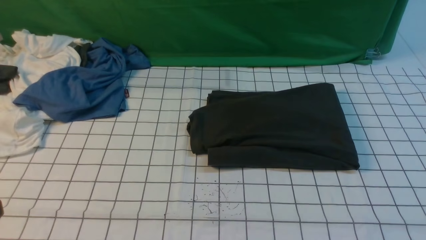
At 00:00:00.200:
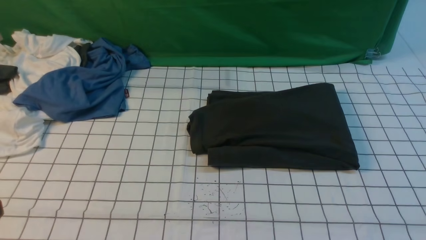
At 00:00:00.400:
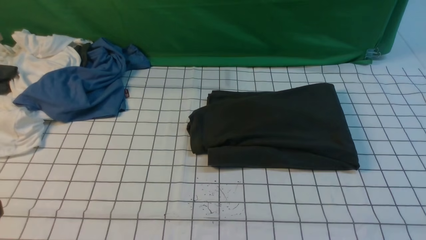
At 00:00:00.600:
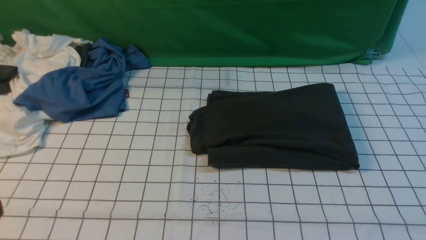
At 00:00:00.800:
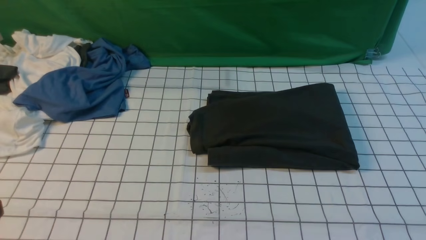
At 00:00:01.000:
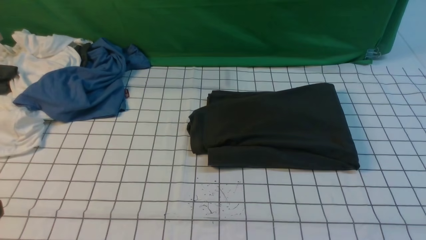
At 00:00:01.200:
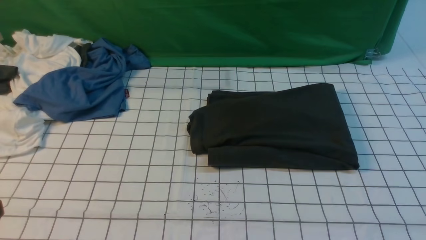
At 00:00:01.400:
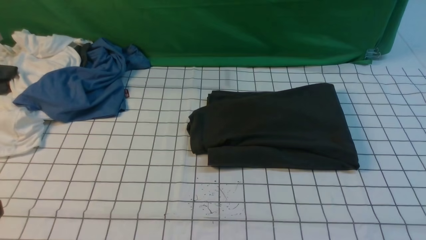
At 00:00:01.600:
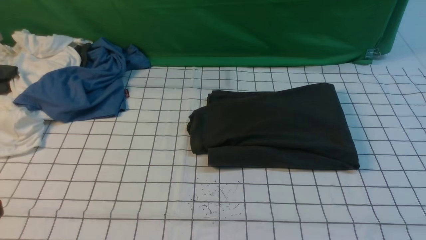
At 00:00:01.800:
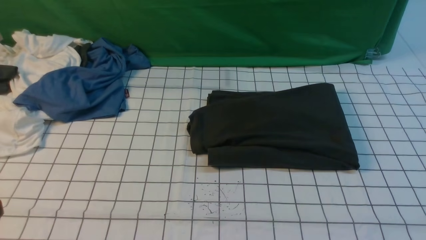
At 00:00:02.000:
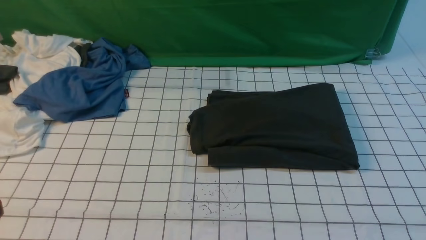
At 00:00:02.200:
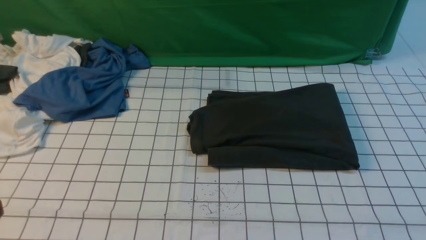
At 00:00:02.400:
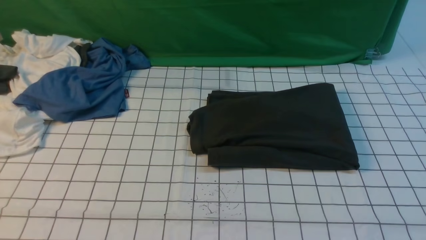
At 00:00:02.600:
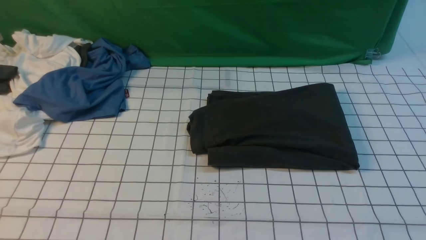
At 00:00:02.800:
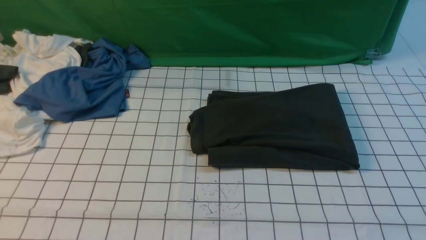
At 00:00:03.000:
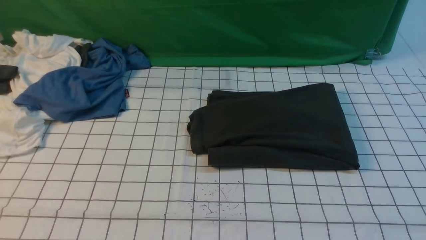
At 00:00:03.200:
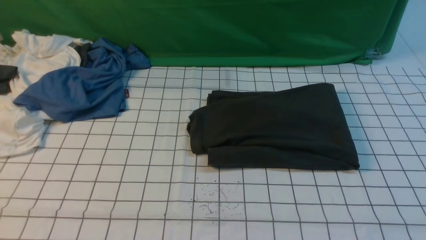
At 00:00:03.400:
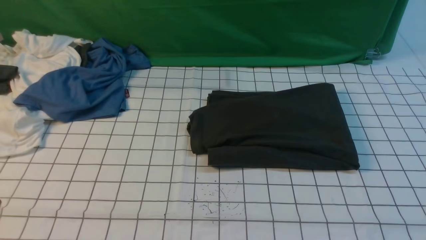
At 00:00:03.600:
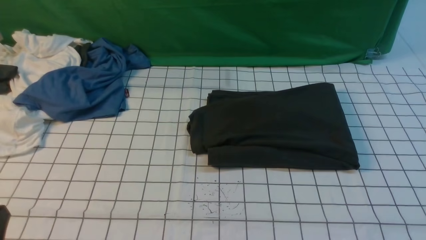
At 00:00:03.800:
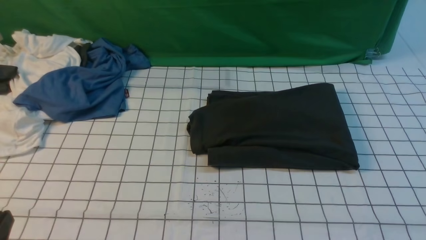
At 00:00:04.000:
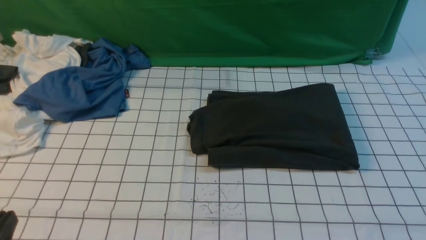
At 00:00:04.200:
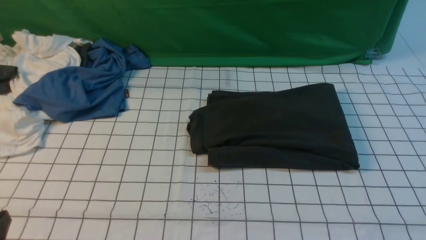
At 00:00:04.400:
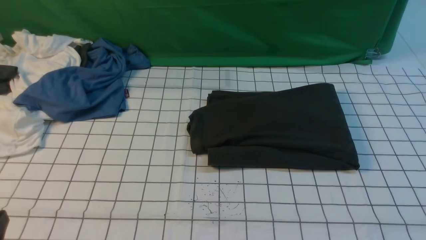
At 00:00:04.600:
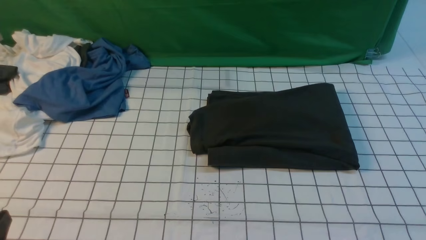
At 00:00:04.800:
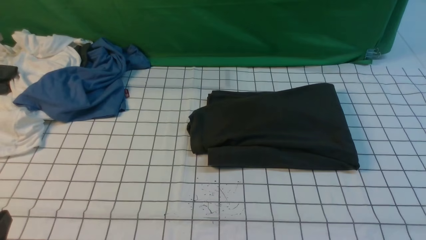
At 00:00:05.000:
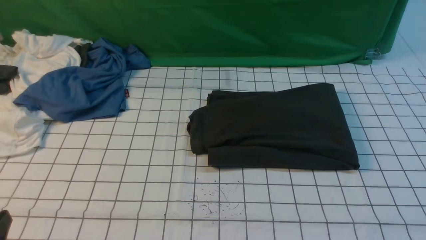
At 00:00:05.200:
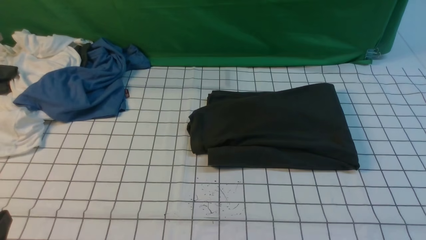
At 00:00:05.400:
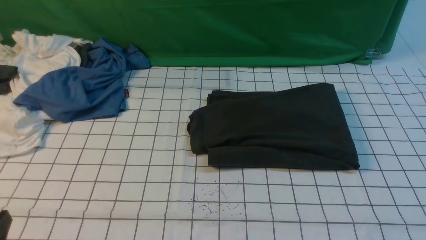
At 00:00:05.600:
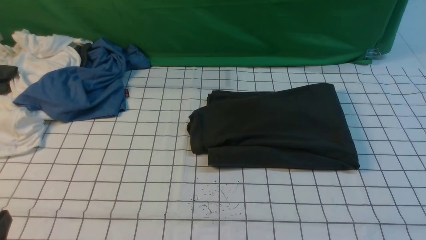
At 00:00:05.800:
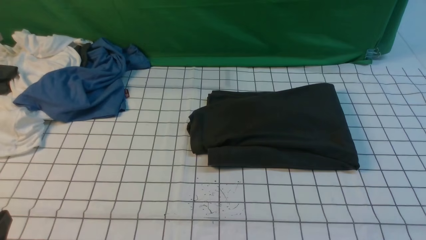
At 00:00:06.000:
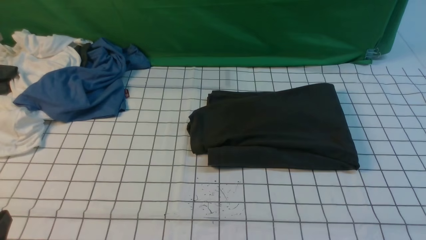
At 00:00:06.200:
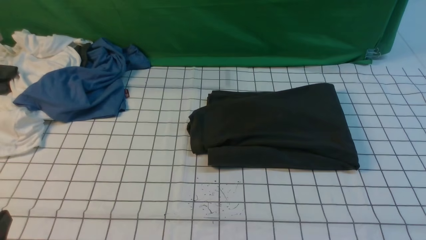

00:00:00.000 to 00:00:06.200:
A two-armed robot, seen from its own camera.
00:00:04.600 to 00:00:06.200: Both grippers stay about where they are.

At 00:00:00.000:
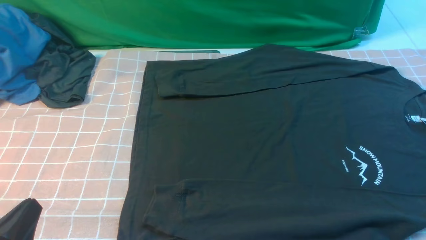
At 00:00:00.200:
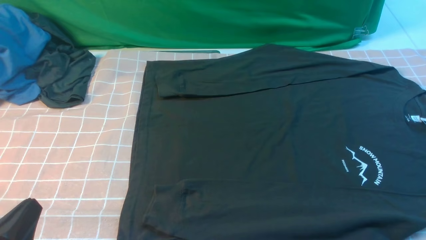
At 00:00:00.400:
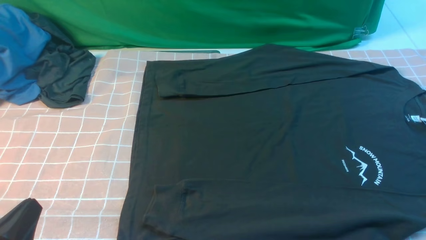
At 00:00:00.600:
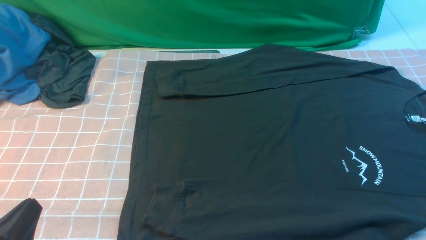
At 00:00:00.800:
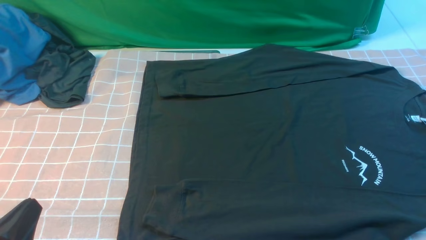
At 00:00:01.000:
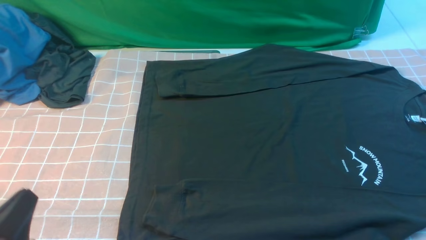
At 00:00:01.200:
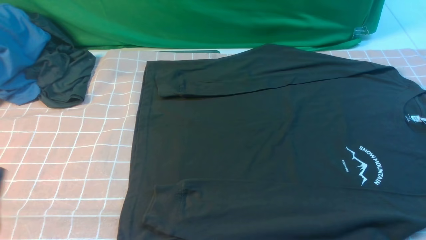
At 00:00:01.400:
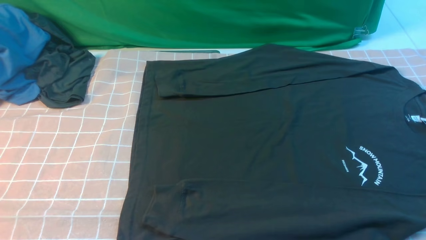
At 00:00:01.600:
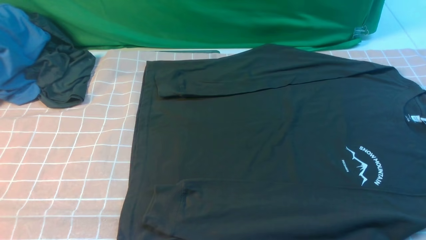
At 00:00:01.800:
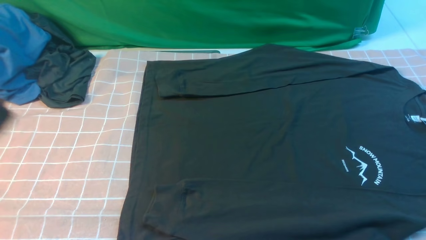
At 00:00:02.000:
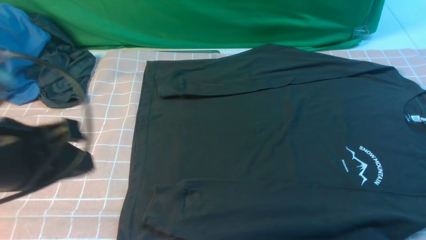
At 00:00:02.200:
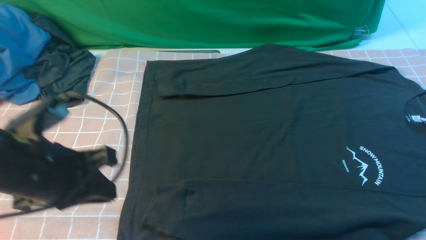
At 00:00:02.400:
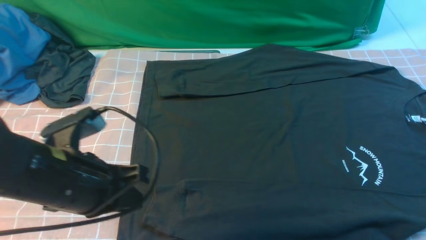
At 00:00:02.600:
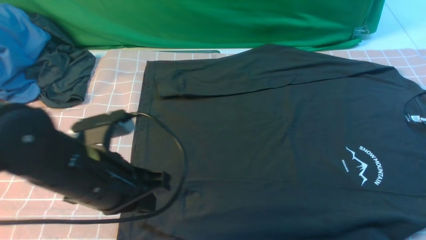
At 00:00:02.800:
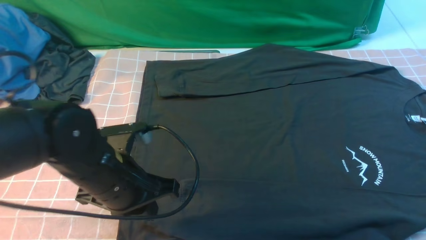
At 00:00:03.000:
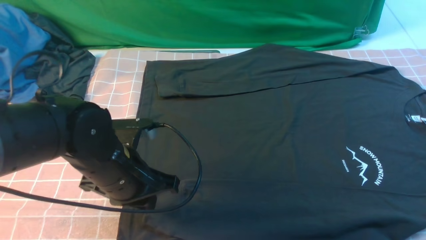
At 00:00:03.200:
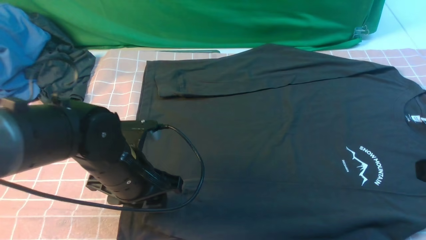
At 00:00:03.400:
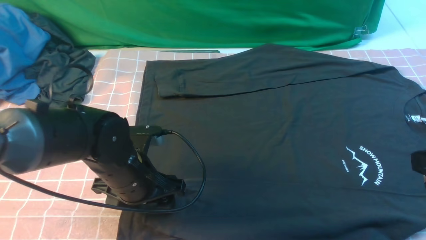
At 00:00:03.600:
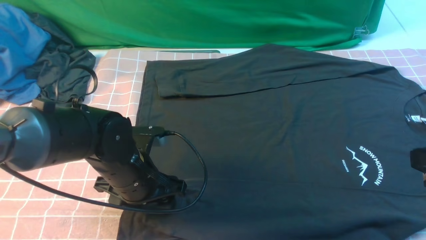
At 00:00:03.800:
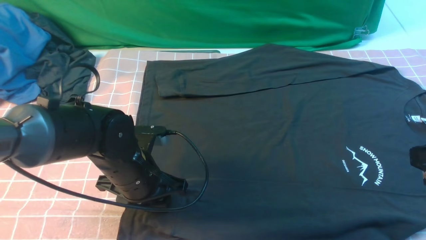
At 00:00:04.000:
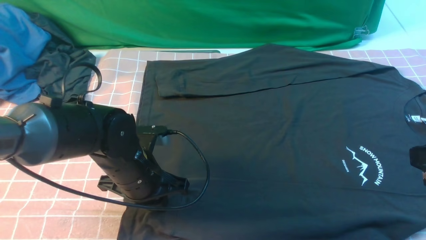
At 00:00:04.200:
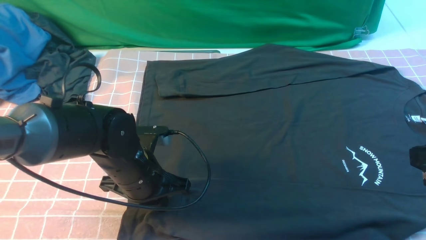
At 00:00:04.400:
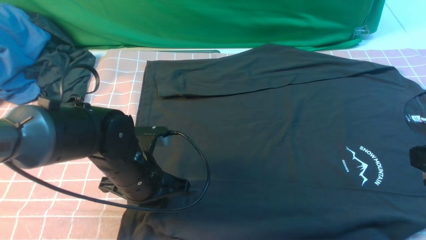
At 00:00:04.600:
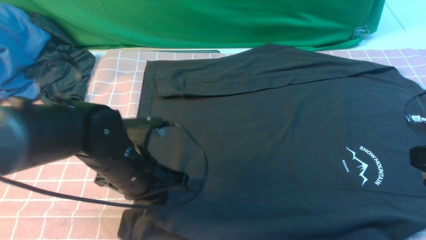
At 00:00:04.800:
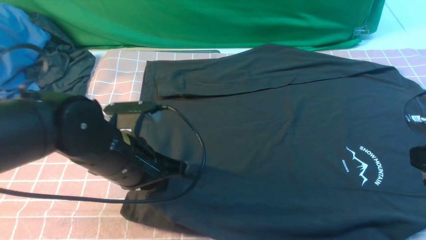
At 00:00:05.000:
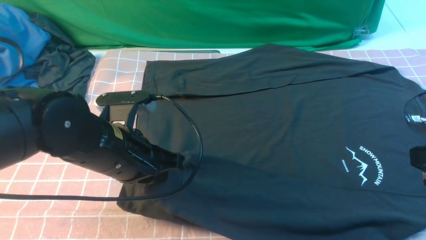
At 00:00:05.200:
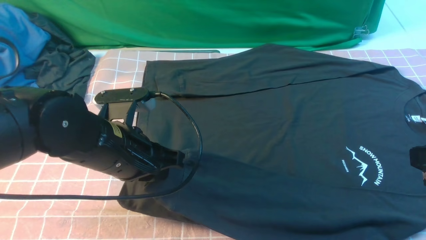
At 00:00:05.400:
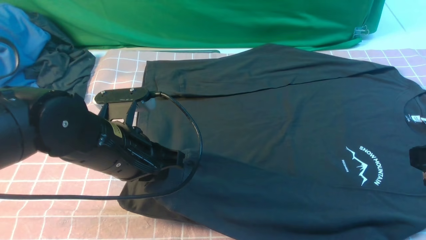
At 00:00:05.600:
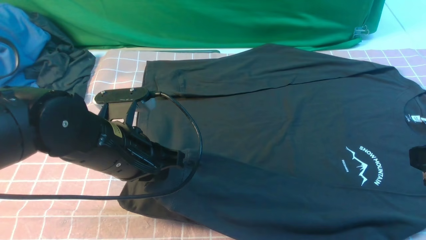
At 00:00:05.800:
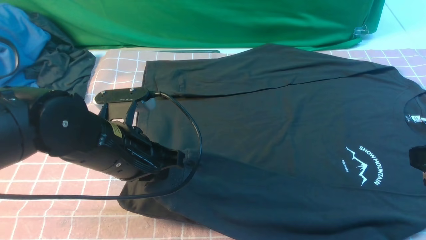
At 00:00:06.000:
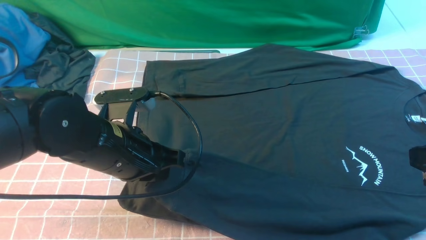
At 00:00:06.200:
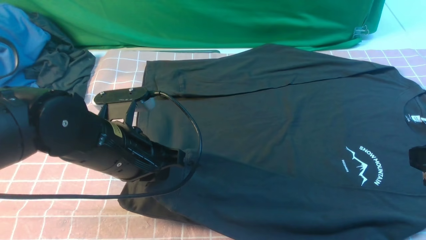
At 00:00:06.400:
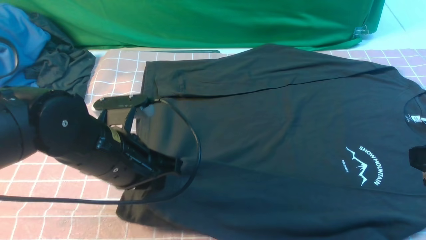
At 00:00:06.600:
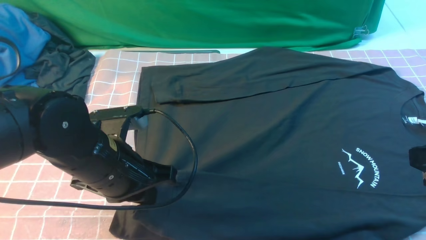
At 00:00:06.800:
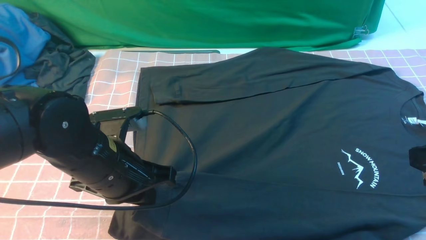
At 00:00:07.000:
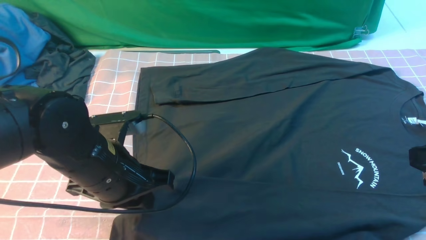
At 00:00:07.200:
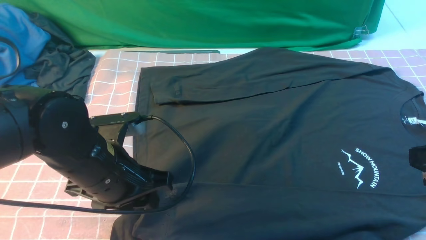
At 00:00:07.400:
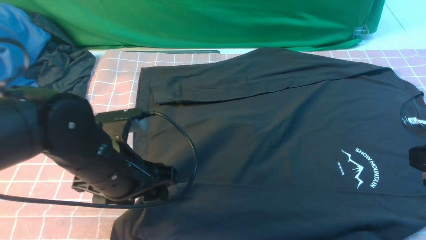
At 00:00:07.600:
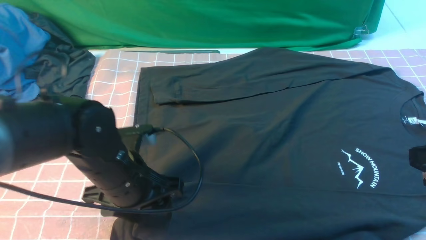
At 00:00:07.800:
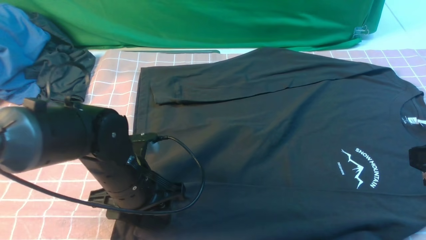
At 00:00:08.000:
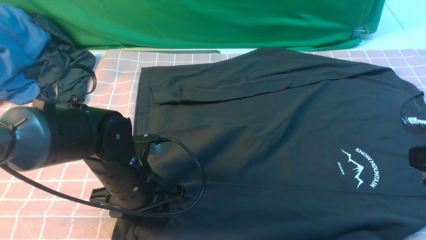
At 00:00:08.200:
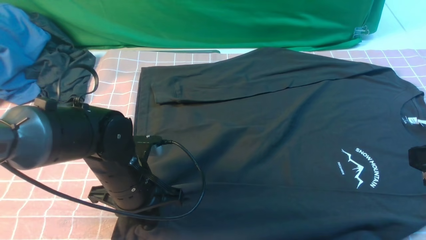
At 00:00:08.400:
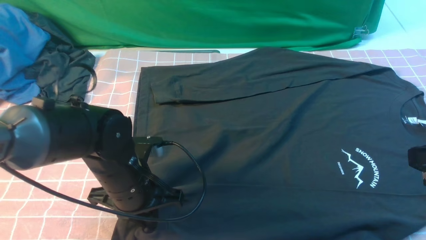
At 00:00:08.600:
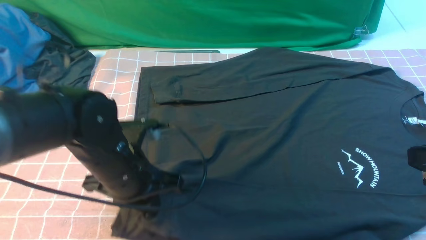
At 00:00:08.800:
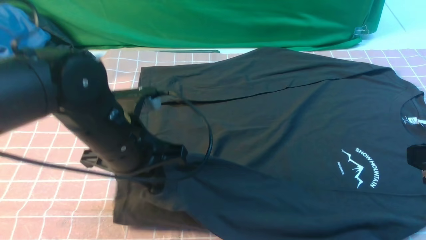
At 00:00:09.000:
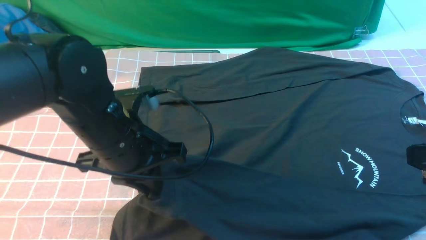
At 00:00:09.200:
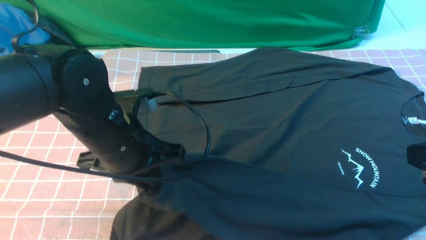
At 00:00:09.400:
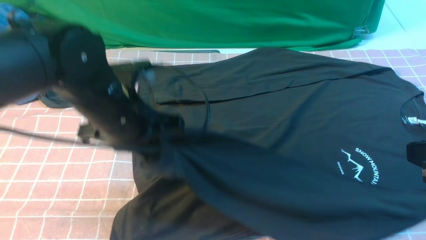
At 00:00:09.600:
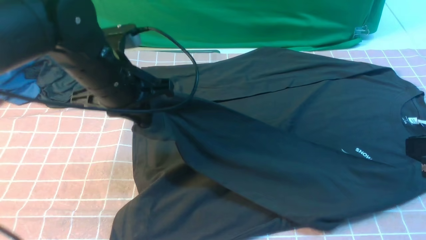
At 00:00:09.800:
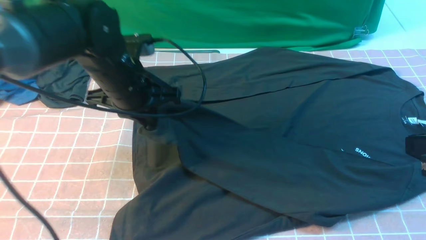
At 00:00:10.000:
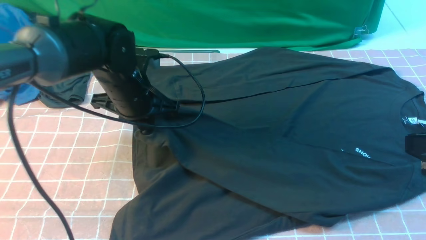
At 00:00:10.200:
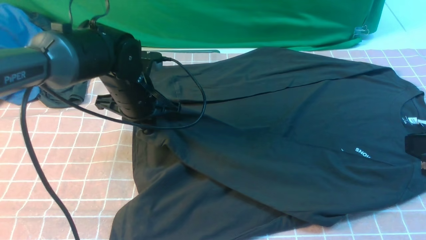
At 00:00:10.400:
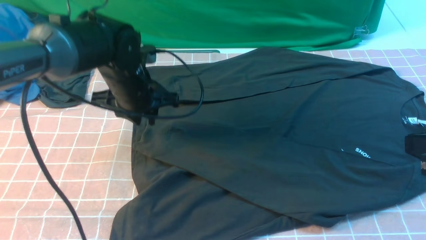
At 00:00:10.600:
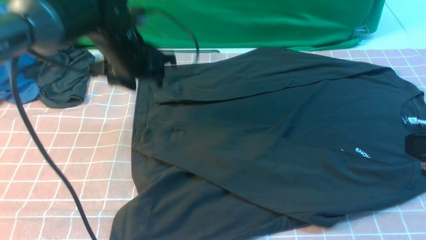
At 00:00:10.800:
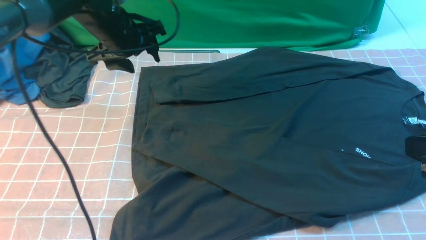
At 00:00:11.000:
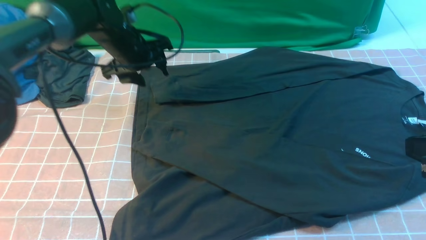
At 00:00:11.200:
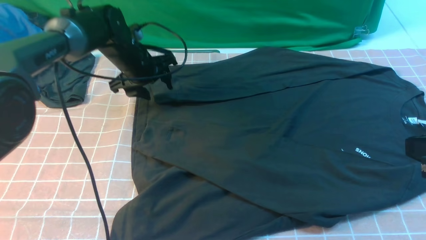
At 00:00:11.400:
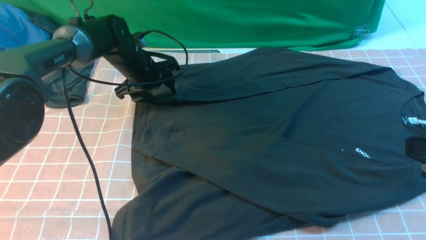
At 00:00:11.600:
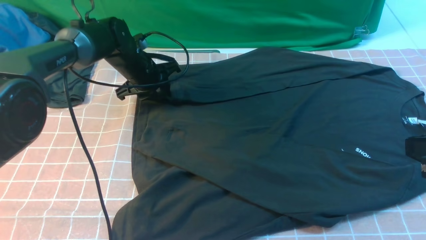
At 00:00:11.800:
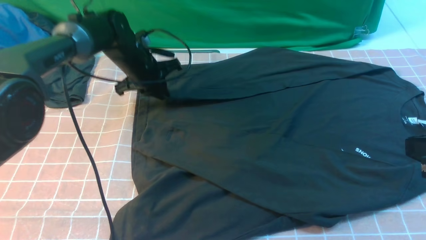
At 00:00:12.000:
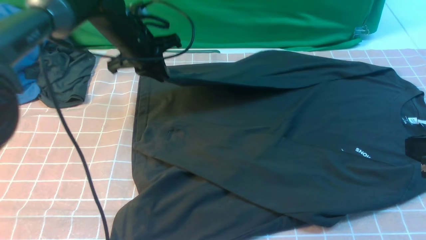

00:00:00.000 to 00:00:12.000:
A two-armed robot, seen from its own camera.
Step, 00:00:00.000 to 00:00:08.800: use the left arm to clamp the cuff closest to it.
Step, 00:00:09.000 to 00:00:10.400: use the left arm to drag and place the cuff at the centered position on the left edge of the fabric.
Step, 00:00:10.600 to 00:00:11.600: use the left arm to clamp the cuff farthest from it.
00:00:00.000 to 00:00:01.600: The left gripper is displaced upward by approximately 10 cm.
00:00:01.600 to 00:00:03.000: The left gripper heads forward, downward and to the right, covering about 25 cm, and opens its fingers; the right gripper shifts approximately 10 cm upward and forward, and closes its fingers.
00:00:03.000 to 00:00:04.400: The left gripper opens, then closes again.
00:00:04.400 to 00:00:06.000: The left gripper moves upward, roughly 5 cm.
00:00:06.000 to 00:00:07.600: The left gripper opens its fingers.
00:00:07.600 to 00:00:09.000: The left gripper moves upward, about 5 cm, and closes up.
00:00:09.000 to 00:00:10.400: The left gripper travels forward by about 15 cm, and opens up.
00:00:10.400 to 00:00:12.000: The left gripper moves forward, approximately 5 cm, and closes up.
